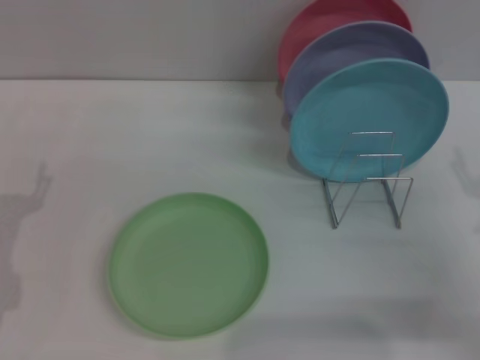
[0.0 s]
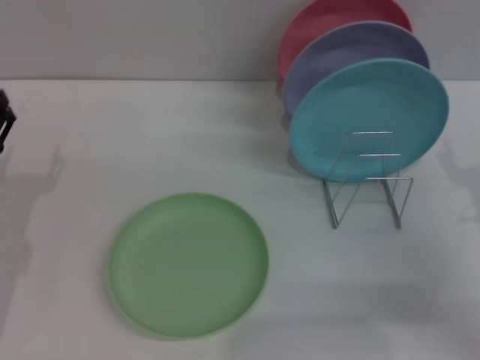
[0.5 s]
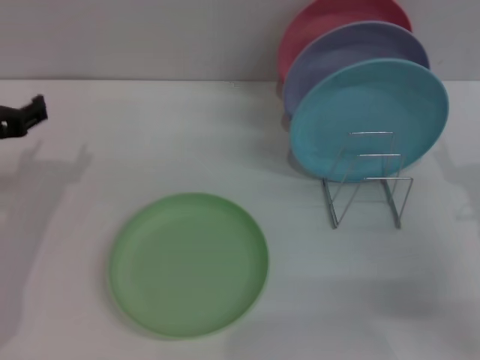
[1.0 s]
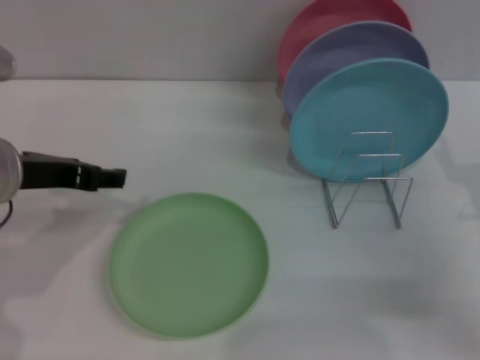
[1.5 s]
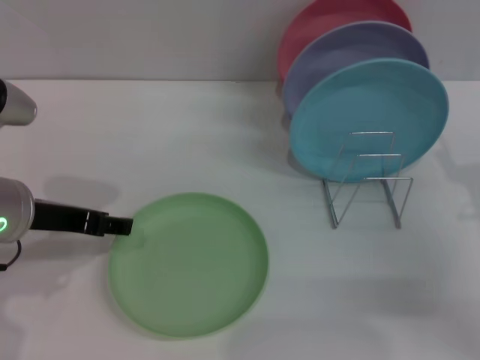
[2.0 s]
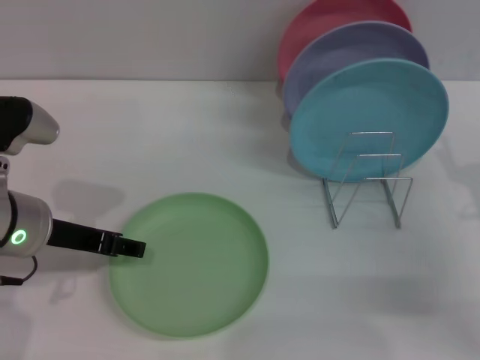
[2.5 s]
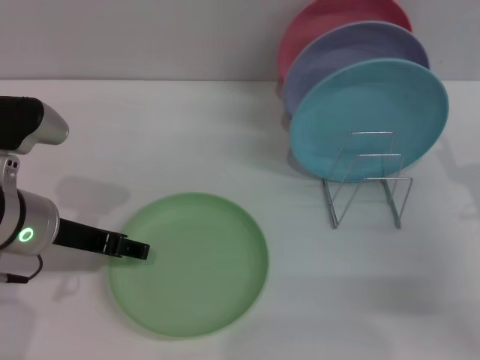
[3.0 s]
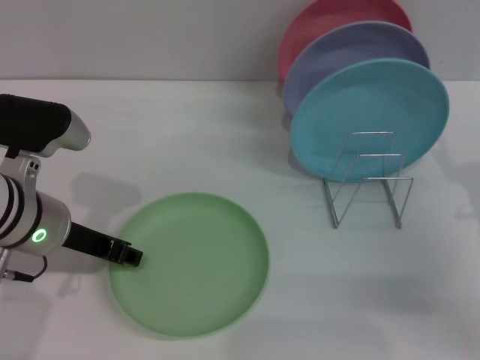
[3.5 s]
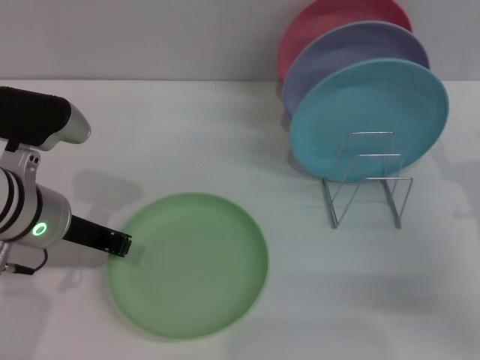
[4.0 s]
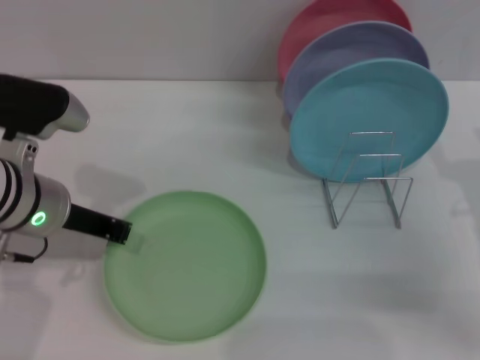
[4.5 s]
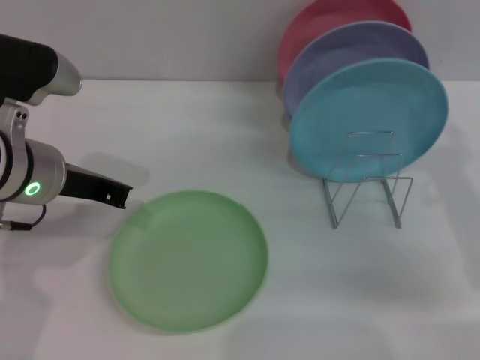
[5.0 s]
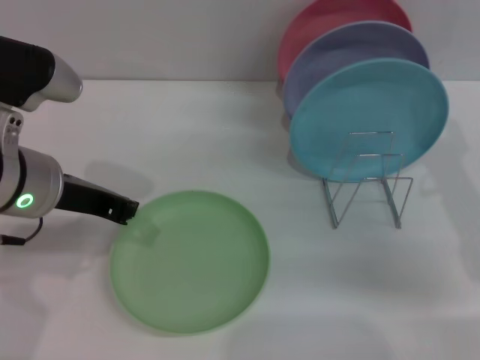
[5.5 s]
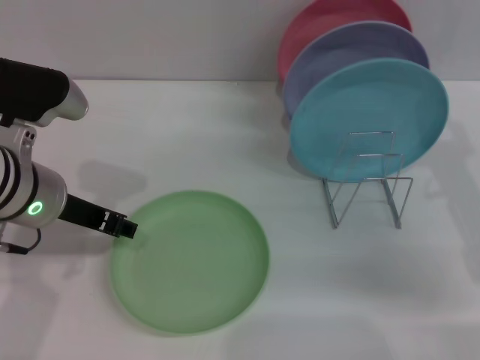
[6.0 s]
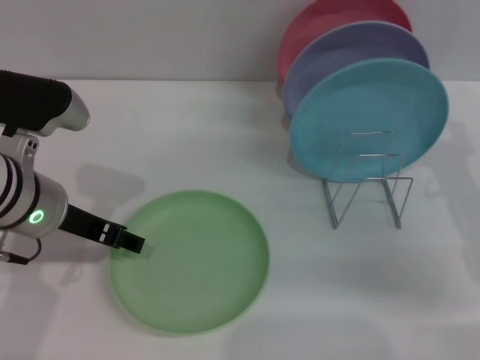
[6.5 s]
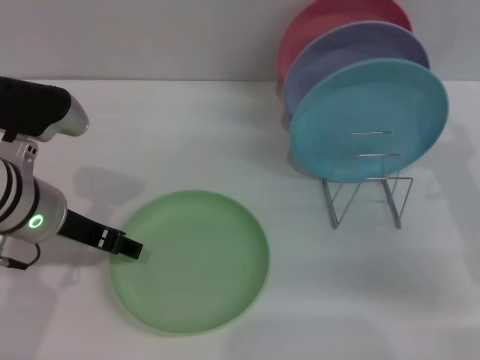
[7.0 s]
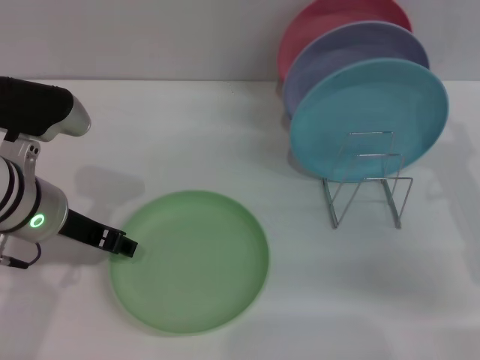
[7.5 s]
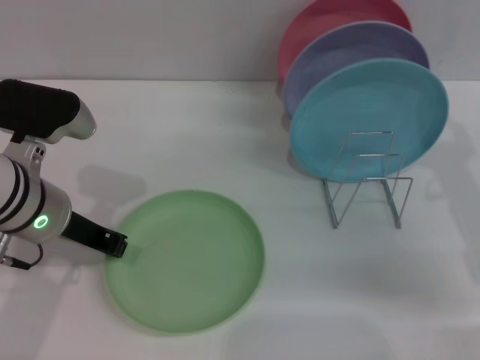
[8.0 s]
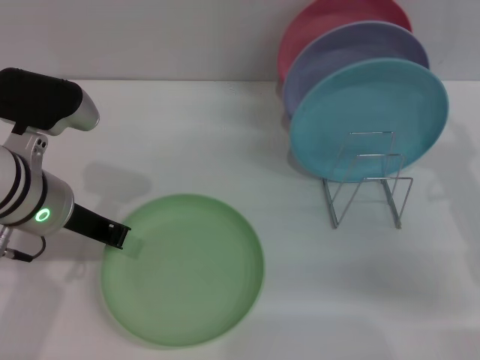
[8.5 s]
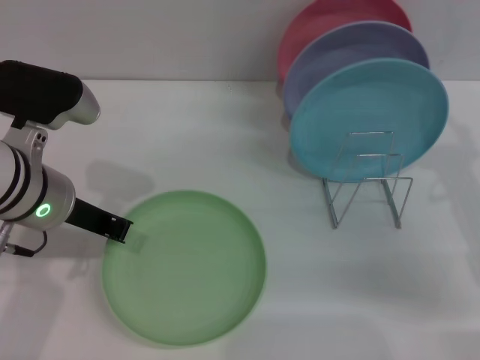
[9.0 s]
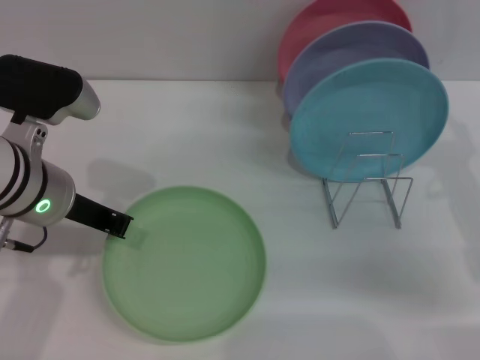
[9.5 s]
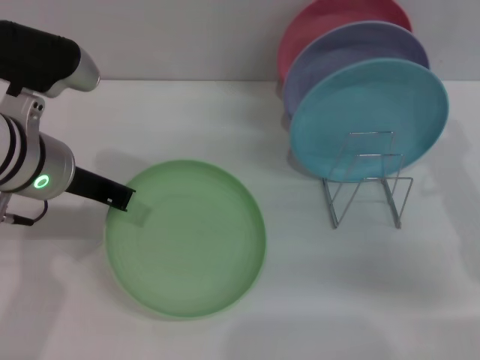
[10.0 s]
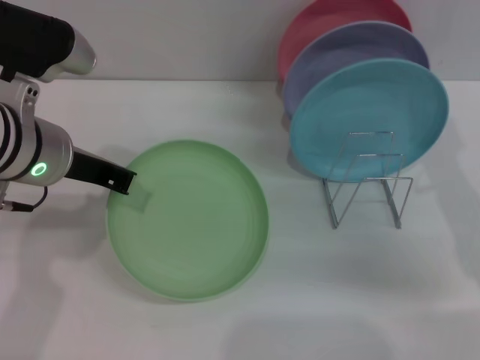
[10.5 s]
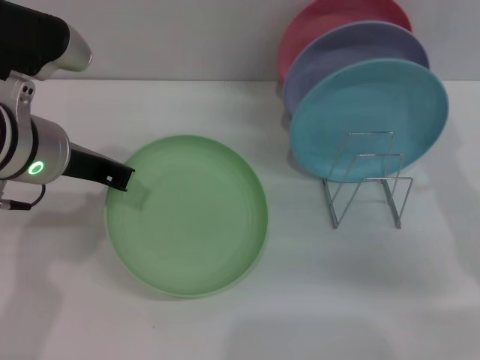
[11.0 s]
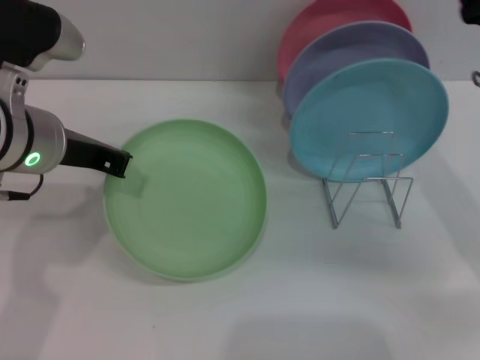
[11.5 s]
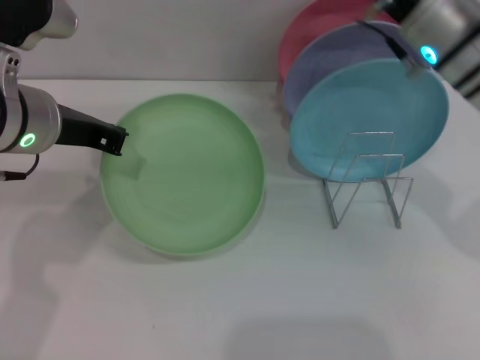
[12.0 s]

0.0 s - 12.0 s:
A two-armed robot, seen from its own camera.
Task of the whole recording: Grip the plate with one hand, pass it to the other, then set it on the shelf.
Step, 0.0 s - 10.0 s: Pick up the plate with the left gripper.
0.0 s - 2.0 s: The left gripper is displaced upward and to the right by some 15 cm.
2.0 s - 4.0 s: The left gripper closes up.
6.0 s - 8.0 s: The left gripper opens and closes again.
8.0 s - 10.0 s: The left gripper closes up.
10.0 s - 12.0 s: The right gripper moves to the left, forward and upward, approximately 15 cm.

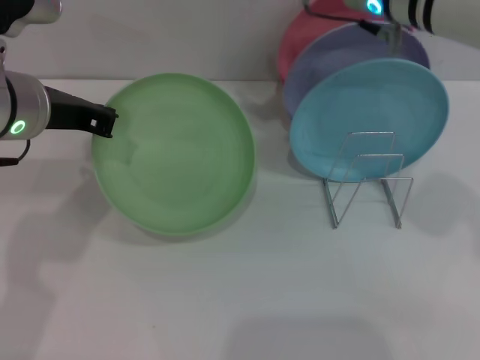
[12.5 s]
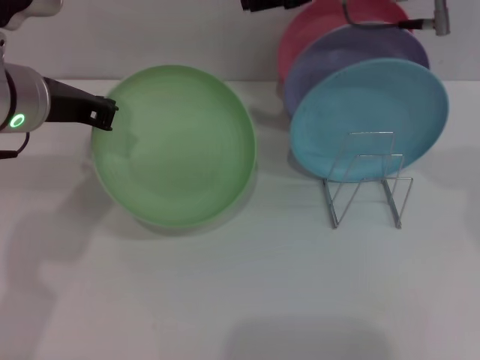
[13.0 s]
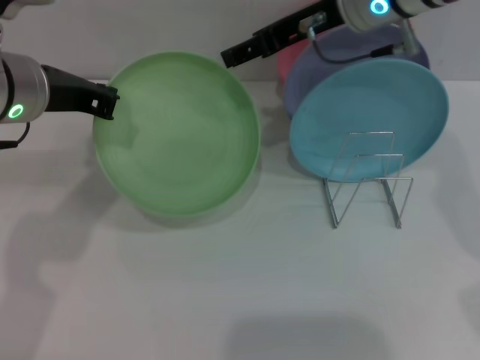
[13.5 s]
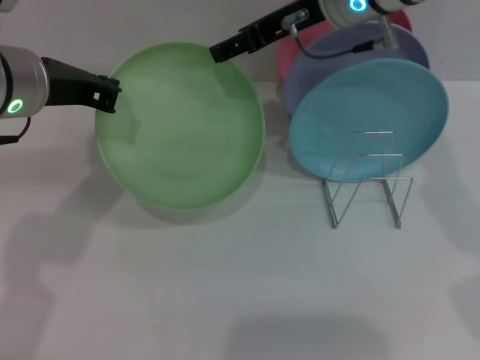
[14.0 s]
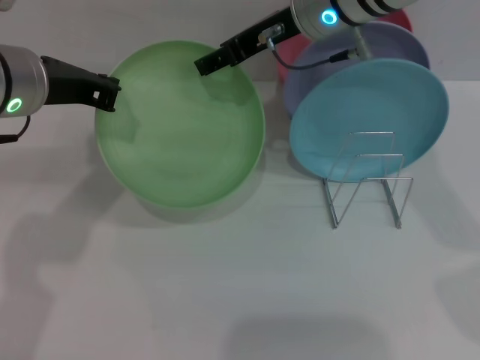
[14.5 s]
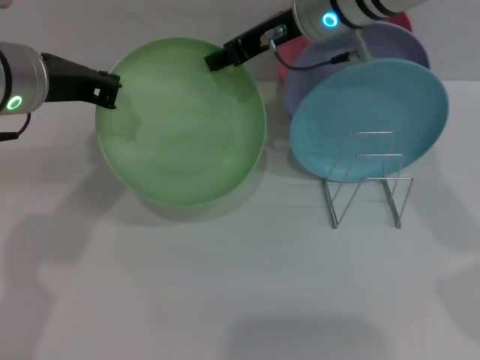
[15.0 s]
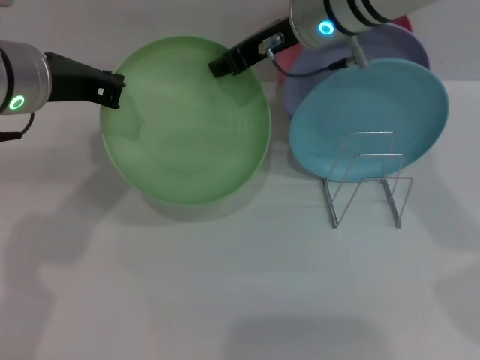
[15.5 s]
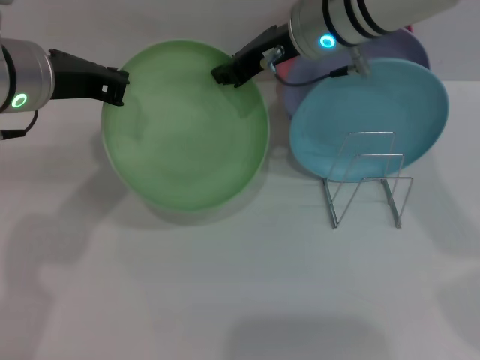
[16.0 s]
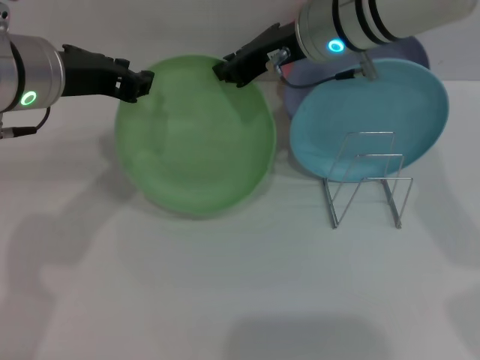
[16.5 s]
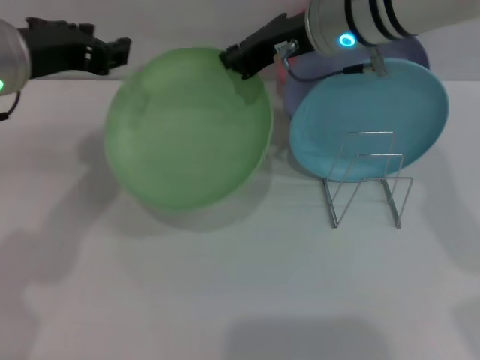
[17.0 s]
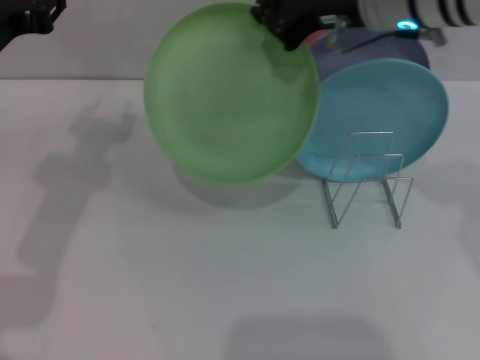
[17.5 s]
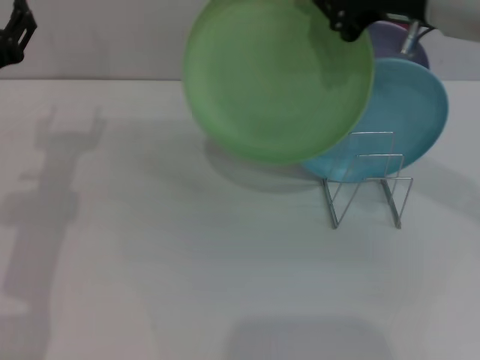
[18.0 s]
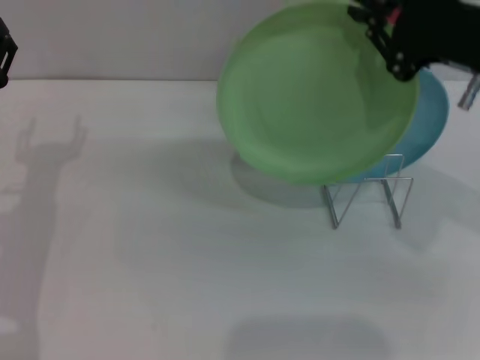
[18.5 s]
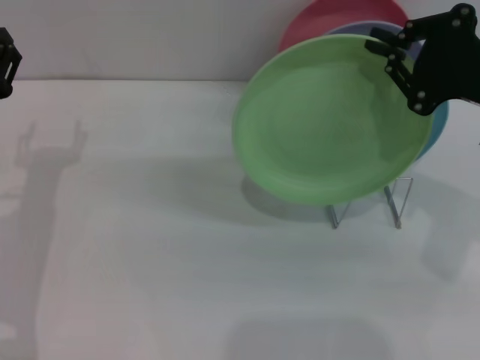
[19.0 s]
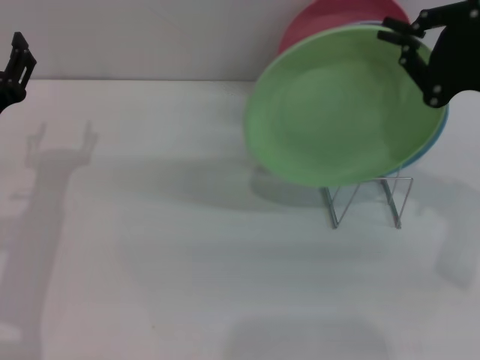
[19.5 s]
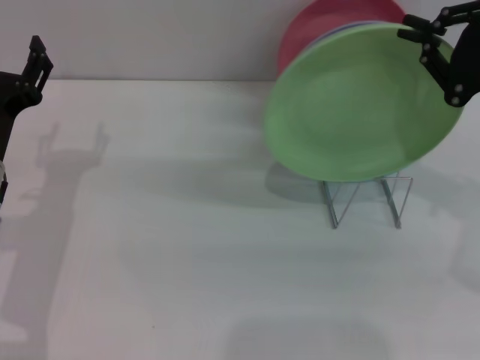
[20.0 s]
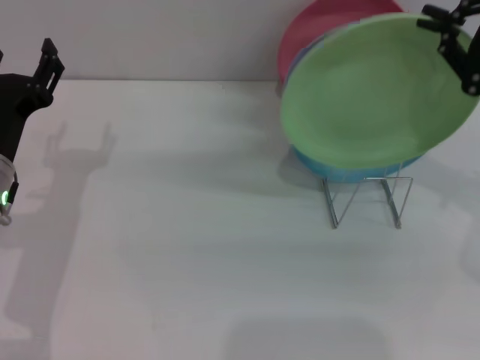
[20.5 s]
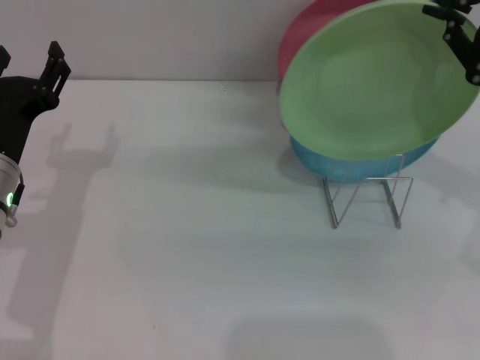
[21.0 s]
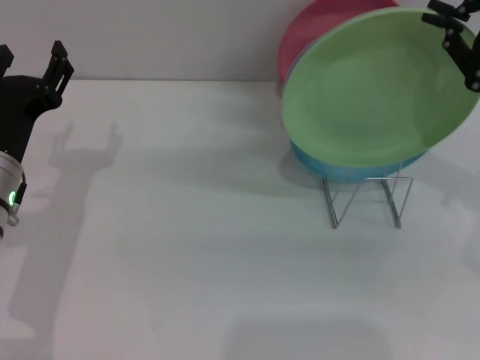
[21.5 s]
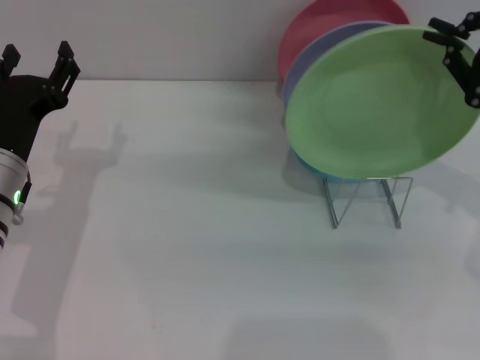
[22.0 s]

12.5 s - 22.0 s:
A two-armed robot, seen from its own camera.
Task of the whole recording: Grip the plate with one hand, pass it to the other, then set it on the shelf.
Step, 12.5 s - 17.0 s: Pass the plate from the left gripper to the right gripper.
12.5 s - 14.5 s: The right gripper changes place by roughly 5 cm.
14.5 s - 16.5 s: The right gripper closes.
16.5 s - 18.0 s: The right gripper goes some 10 cm to the right and backward. Meanwhile the left gripper heads downward and to the left, covering about 10 cm, and opens.
18.0 s - 20.0 s: The right gripper is displaced to the right, backward and downward by about 10 cm.
20.0 s - 22.0 s: The grippers stay close to where they were, moving slightly.

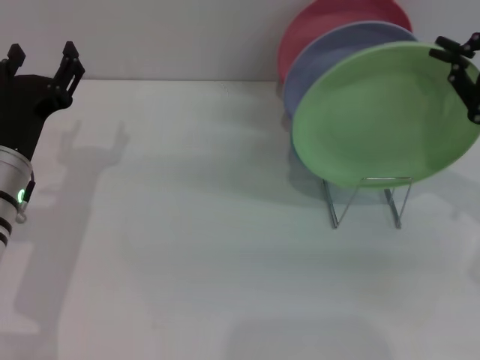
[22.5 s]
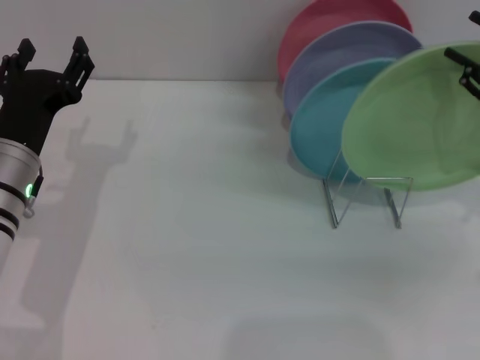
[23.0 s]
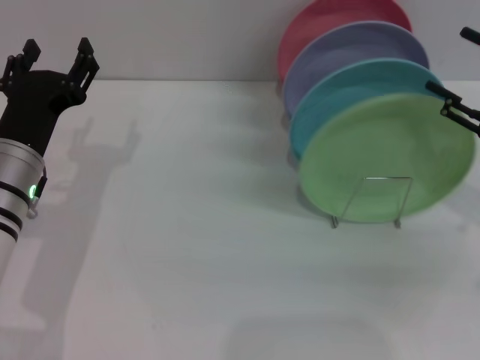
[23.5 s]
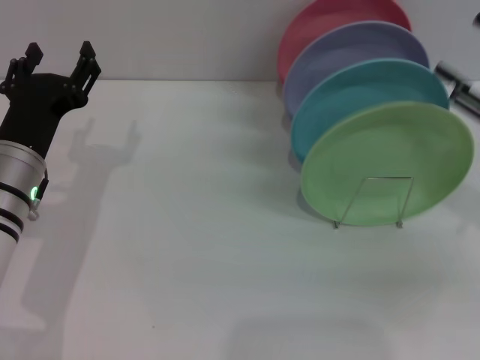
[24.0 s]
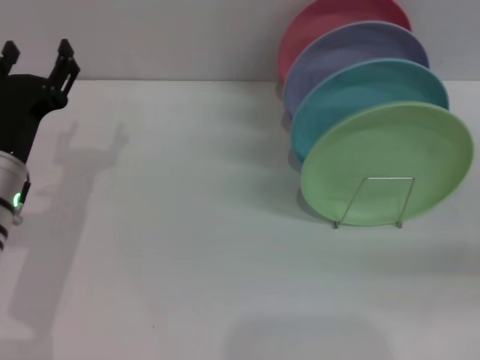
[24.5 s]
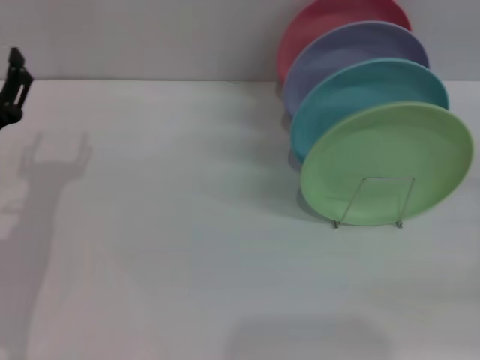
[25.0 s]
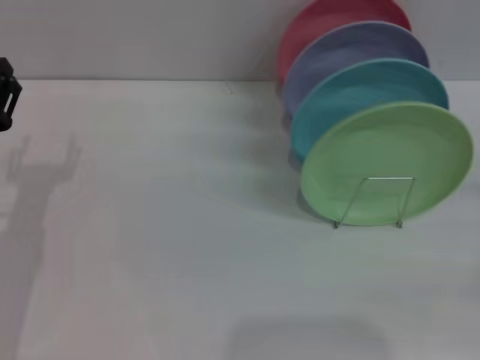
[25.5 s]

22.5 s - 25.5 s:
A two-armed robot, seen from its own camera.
Task of the whole recording: Grip the plate with one hand, pass it to the other, then set it on the shelf.
22.5 s - 24.0 s: The right gripper opens its fingers.
24.0 s - 25.5 s: The right gripper shifts some 10 cm to the right and downward; the left gripper is displaced to the left by roughly 5 cm.
